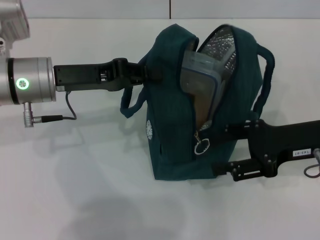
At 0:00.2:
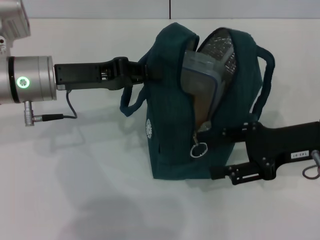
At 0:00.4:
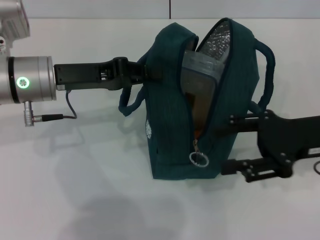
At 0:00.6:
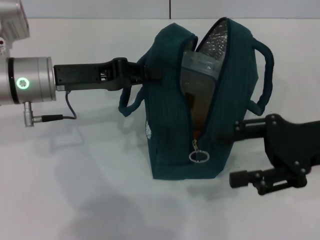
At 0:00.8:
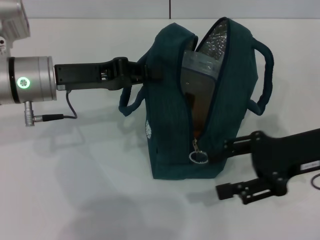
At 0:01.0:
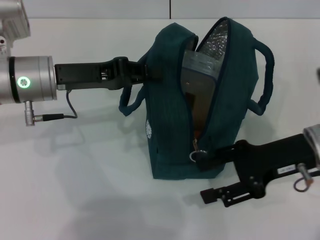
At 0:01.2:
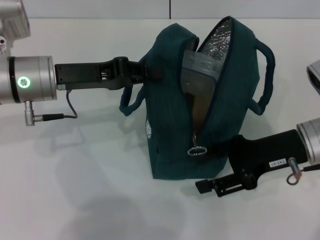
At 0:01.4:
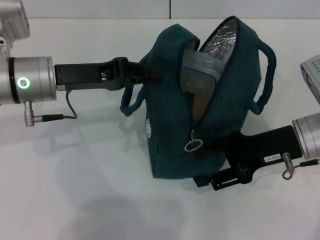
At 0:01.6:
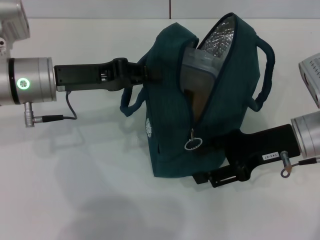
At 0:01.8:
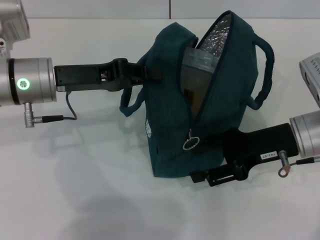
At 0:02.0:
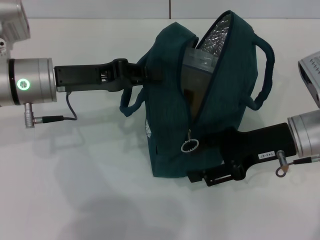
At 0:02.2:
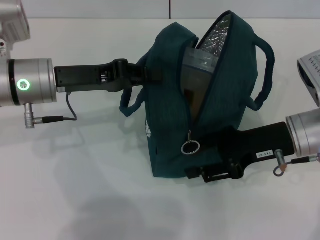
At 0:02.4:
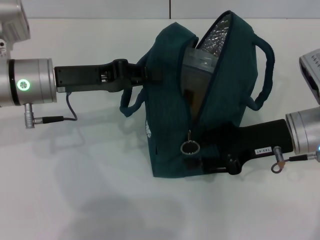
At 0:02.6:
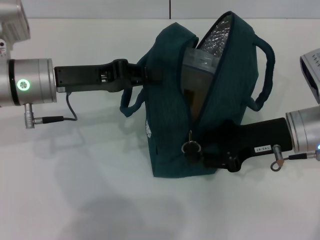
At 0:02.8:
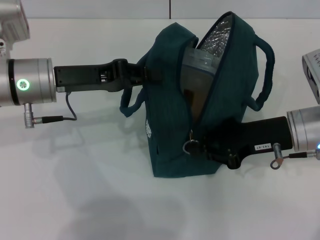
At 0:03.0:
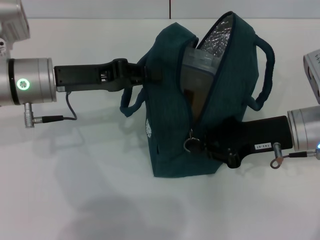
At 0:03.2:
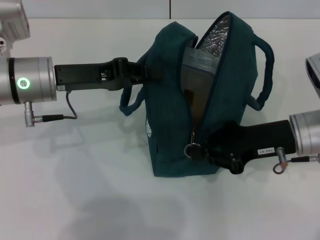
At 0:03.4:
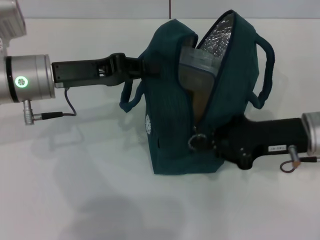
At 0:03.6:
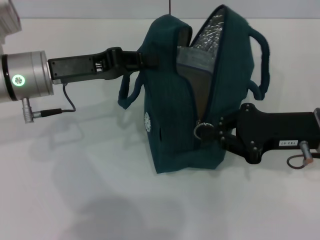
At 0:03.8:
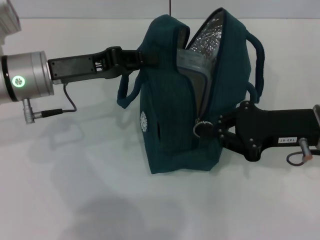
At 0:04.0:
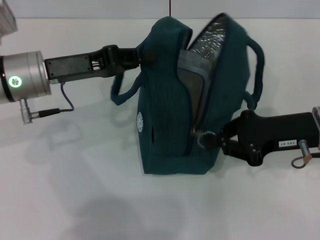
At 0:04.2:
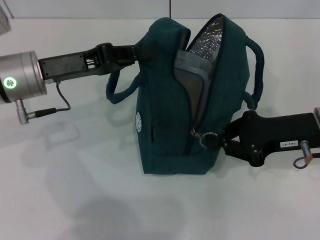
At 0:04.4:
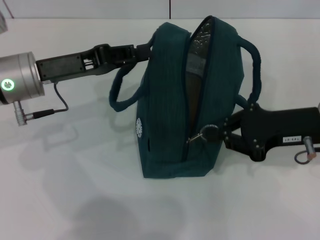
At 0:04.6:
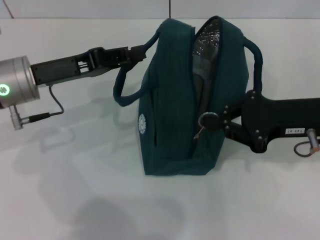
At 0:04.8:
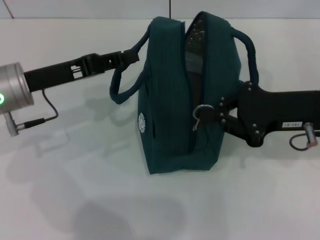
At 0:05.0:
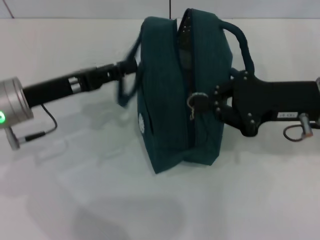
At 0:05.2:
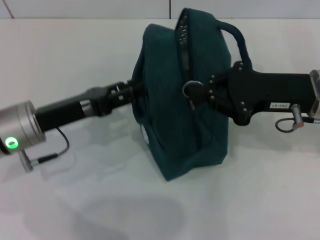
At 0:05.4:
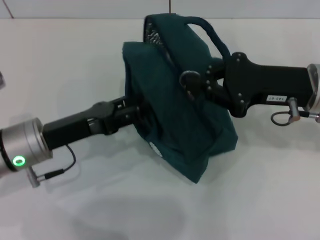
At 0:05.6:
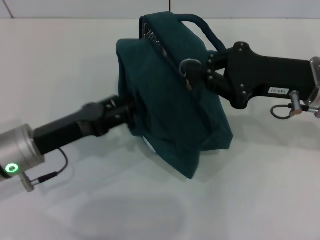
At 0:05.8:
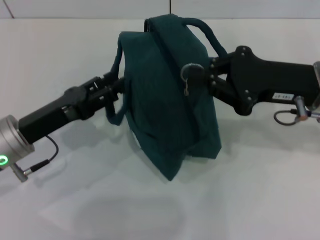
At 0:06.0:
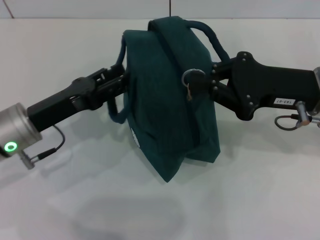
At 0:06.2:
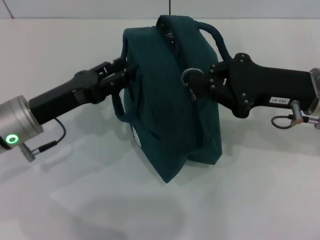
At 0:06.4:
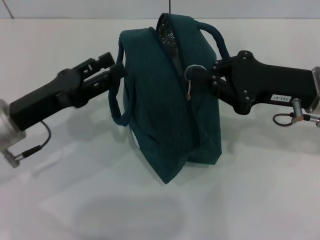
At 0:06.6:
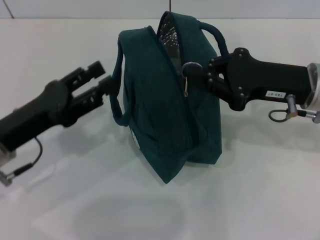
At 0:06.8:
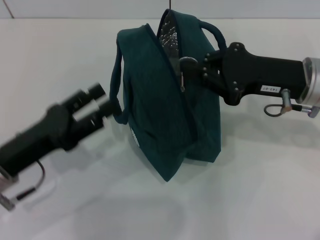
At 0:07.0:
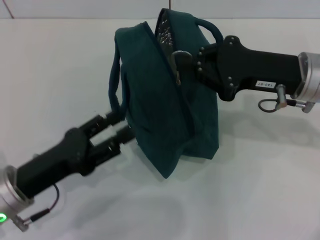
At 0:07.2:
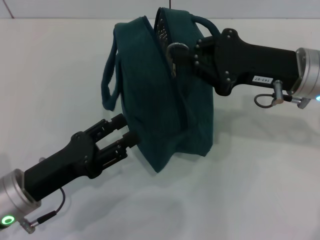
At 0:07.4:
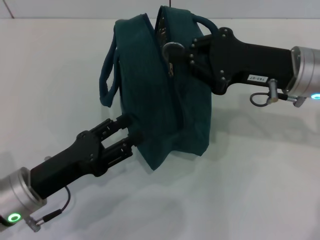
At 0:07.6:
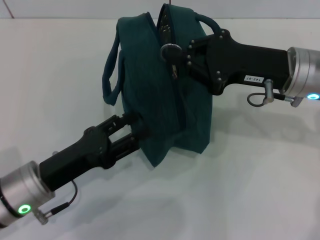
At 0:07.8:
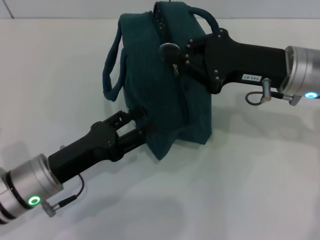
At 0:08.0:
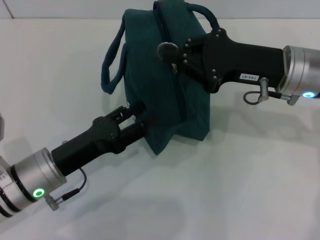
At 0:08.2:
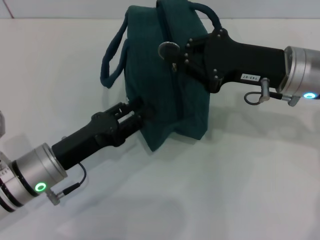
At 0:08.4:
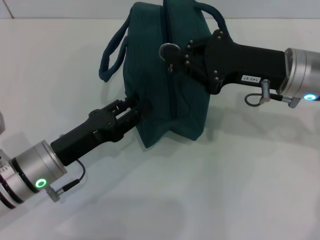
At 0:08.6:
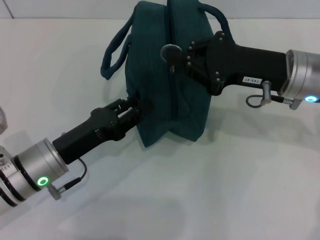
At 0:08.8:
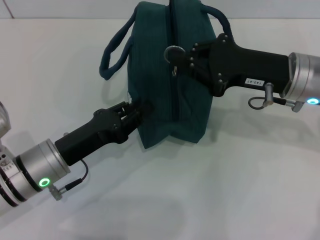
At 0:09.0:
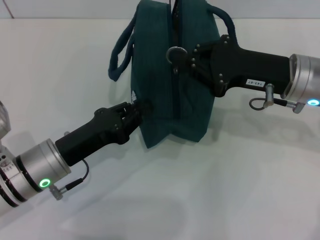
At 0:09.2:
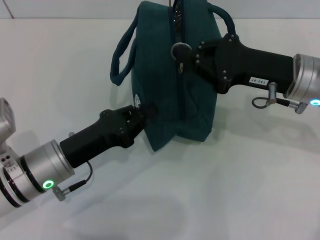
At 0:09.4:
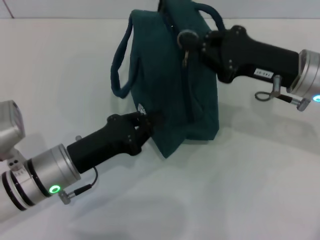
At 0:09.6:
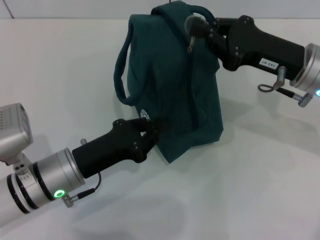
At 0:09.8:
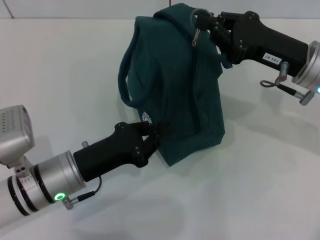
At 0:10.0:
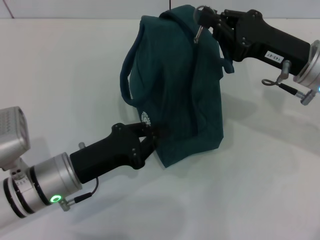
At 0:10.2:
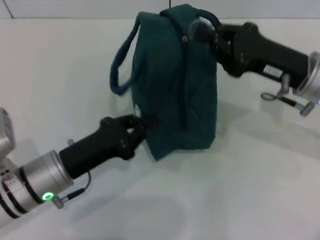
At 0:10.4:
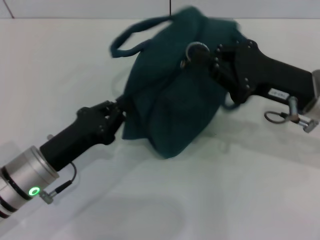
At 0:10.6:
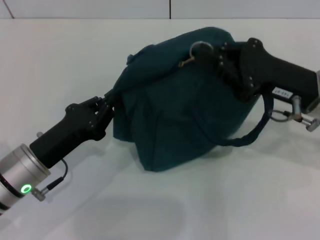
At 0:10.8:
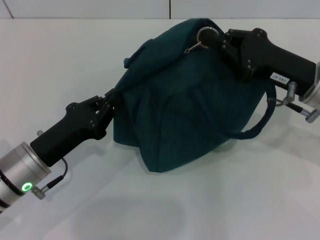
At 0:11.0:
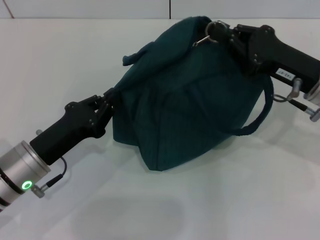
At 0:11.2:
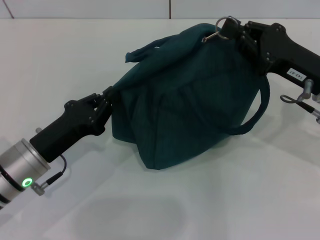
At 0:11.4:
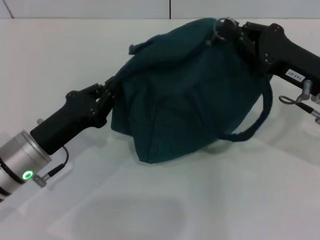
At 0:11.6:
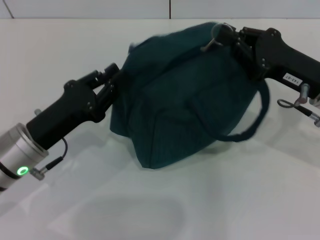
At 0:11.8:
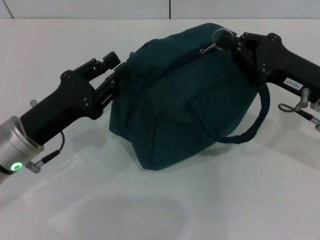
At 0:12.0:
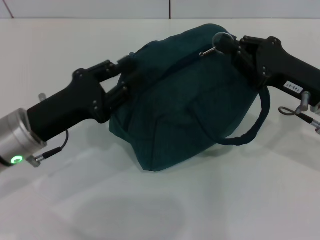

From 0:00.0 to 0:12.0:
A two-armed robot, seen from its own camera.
From 0:00.0 to 0:01.6: The grippers stay close to where they were, moving slightly.
From 0:01.6 to 0:03.0: The right gripper closes.
From 0:04.4 to 0:06.0: The left gripper goes roughly 10 cm downward and backward, and opens.
From 0:06.0 to 0:07.6: The left gripper shifts approximately 5 cm backward.
From 0:07.6 to 0:09.0: The left gripper closes up.
From 0:09.0 to 0:10.4: The grippers make only small movements.
From 0:10.4 to 0:12.0: The left gripper heads upward, covering some 5 cm, and opens up.

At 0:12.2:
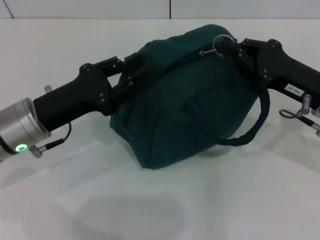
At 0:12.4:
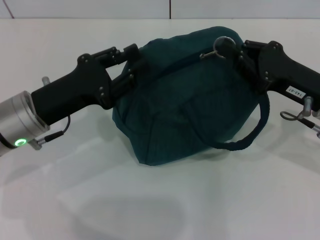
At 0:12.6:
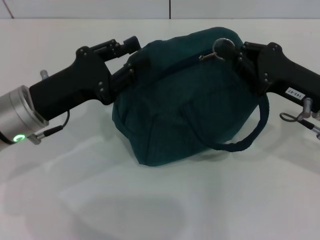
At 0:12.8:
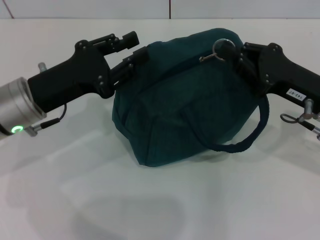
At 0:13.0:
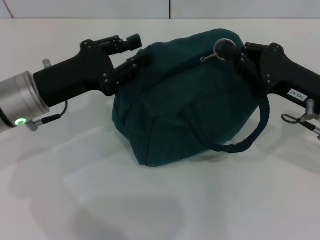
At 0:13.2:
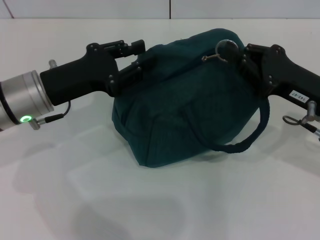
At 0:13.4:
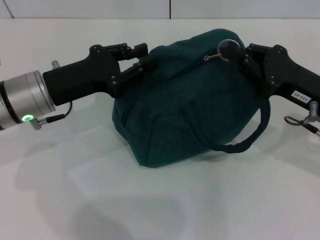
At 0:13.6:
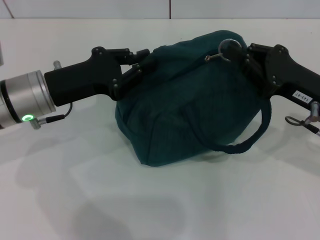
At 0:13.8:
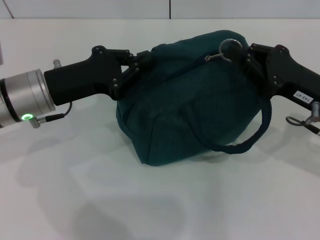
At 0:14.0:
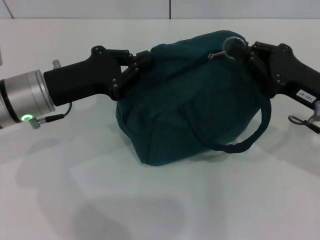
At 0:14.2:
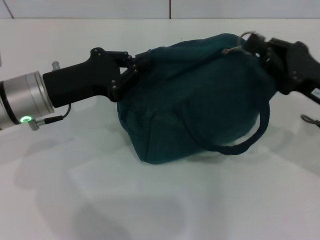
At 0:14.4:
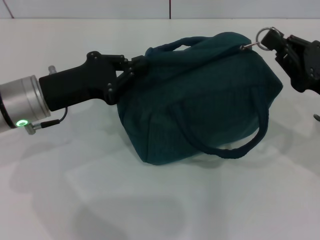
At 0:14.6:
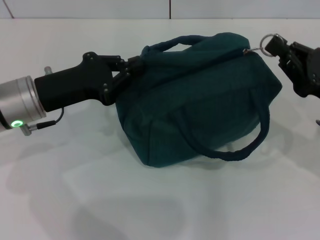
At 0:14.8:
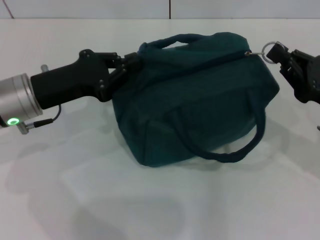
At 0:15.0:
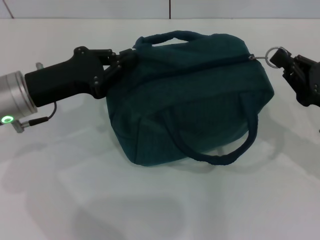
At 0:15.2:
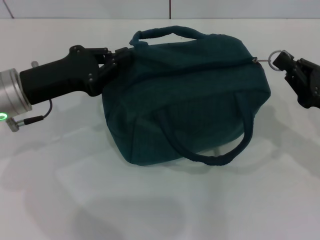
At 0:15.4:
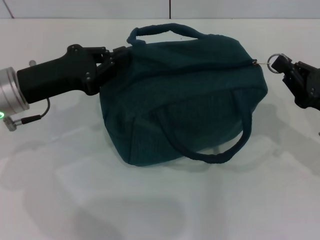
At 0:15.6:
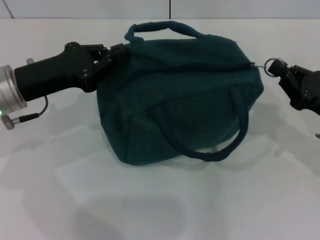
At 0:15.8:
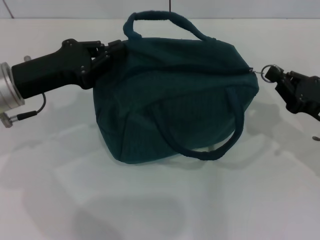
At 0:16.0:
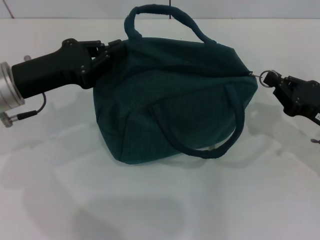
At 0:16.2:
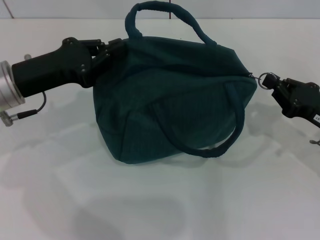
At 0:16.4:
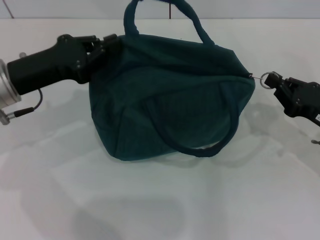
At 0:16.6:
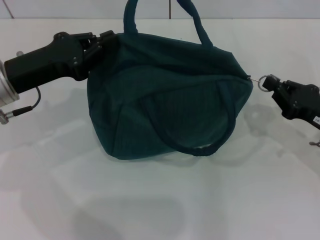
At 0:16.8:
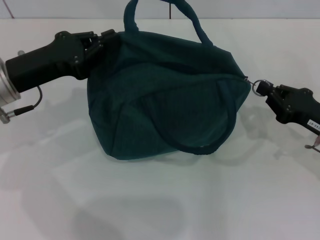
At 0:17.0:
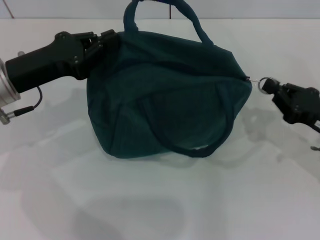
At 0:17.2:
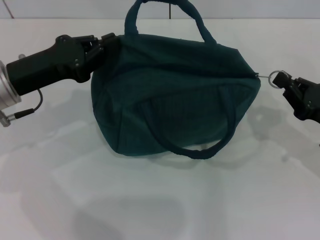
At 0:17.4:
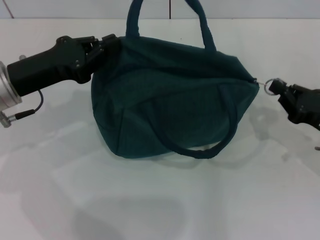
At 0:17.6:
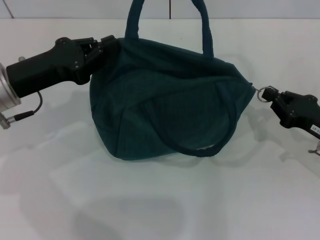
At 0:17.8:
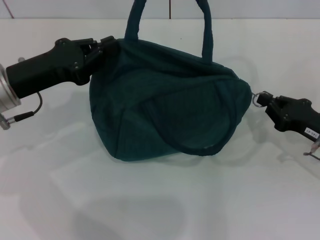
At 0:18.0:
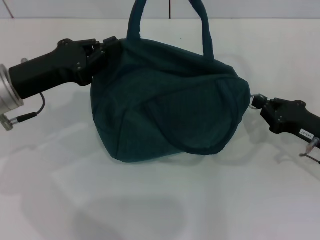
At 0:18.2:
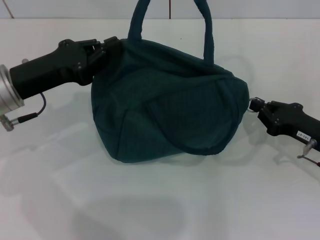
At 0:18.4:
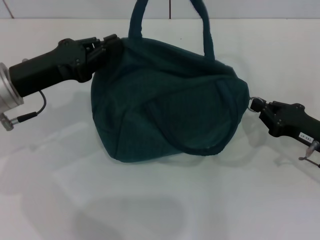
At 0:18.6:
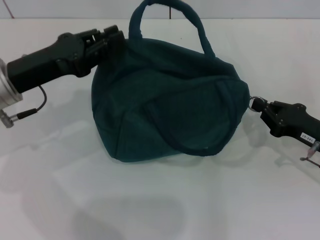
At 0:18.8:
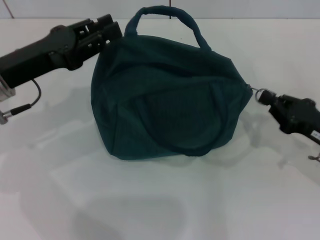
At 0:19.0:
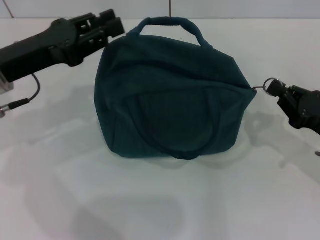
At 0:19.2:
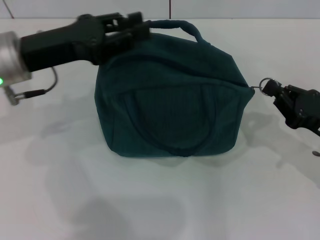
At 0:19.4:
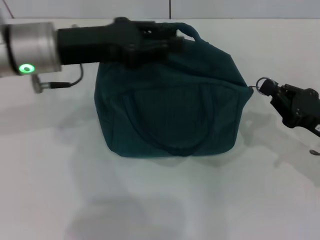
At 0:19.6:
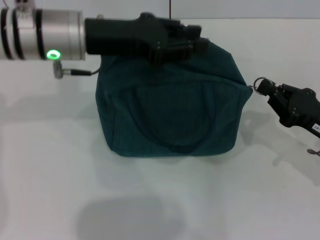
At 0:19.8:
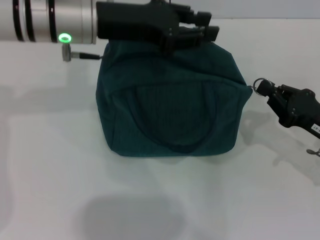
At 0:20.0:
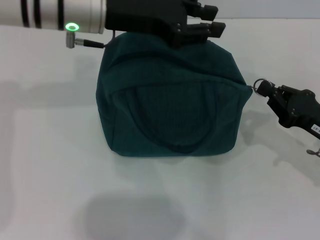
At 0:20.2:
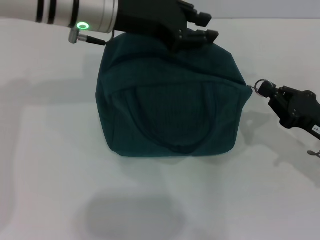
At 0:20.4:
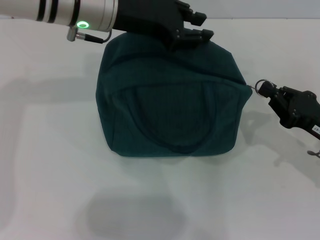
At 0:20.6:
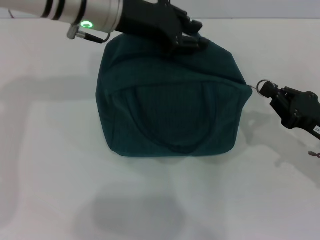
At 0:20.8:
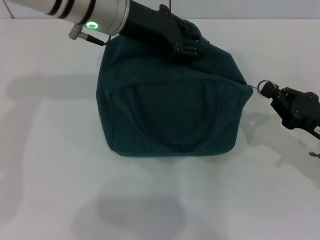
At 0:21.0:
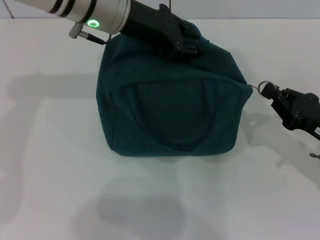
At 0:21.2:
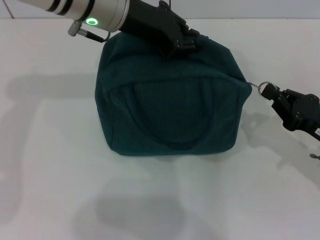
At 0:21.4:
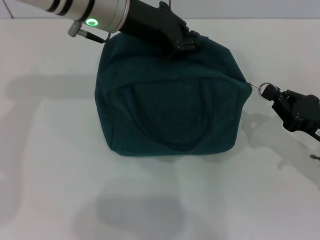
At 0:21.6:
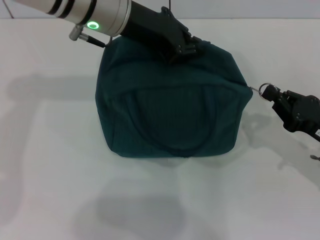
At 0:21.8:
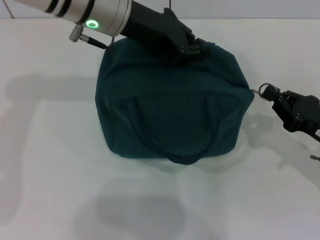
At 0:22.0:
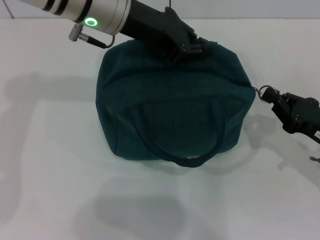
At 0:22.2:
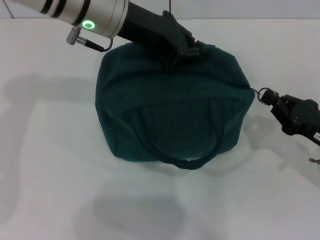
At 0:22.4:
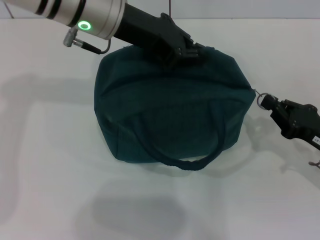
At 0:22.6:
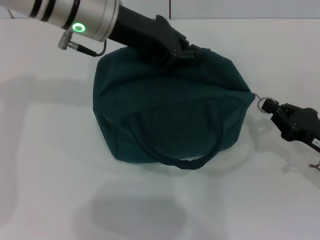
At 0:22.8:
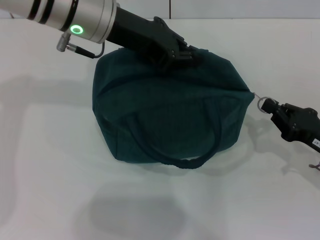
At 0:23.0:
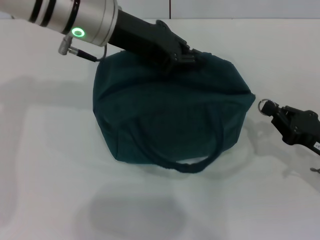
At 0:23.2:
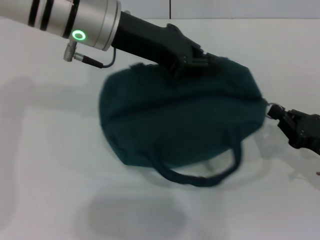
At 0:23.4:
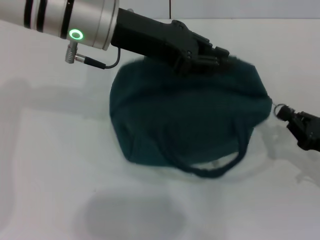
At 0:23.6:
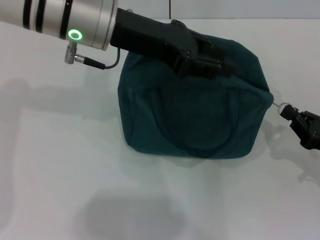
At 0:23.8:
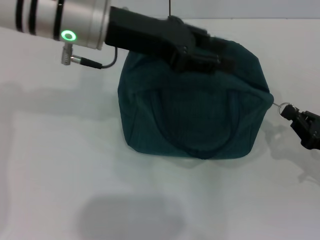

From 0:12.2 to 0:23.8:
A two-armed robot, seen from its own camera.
Step, from 0:12.2 to 0:23.8: Hold the lunch bag with your left hand.
From 0:12.2 to 0:13.6: The grippers stay close to where they were, moving slightly.
From 0:13.6 to 0:15.0: The left gripper closes; the right gripper moves some 5 cm.
From 0:16.6 to 0:18.0: The grippers move only a little.
From 0:18.0 to 0:19.4: The left gripper is displaced to the right and upward by roughly 10 cm, and opens.
From 0:19.4 to 0:21.0: The left gripper heads to the right and forward, covering roughly 10 cm.
From 0:21.0 to 0:22.4: The grippers move only a little.
From 0:22.4 to 0:23.8: The grippers move only a little.
